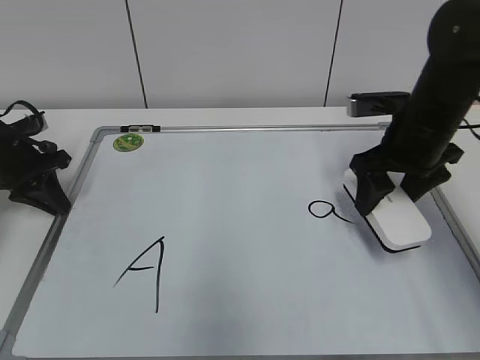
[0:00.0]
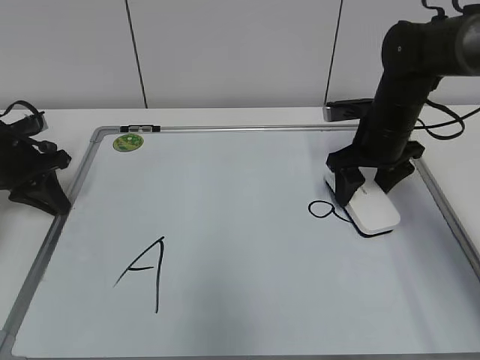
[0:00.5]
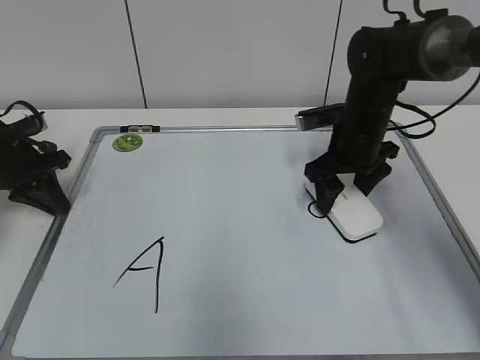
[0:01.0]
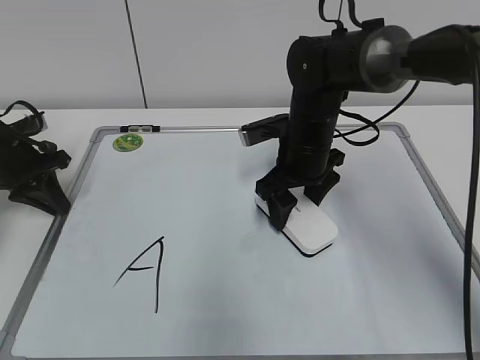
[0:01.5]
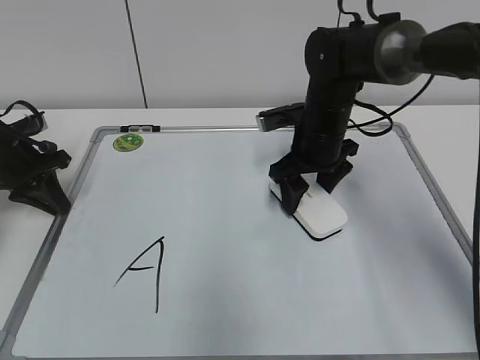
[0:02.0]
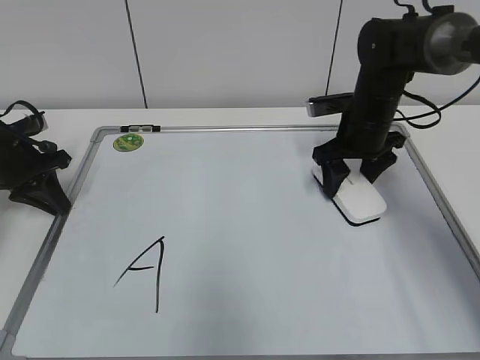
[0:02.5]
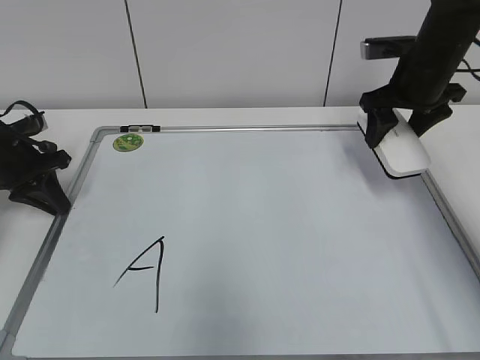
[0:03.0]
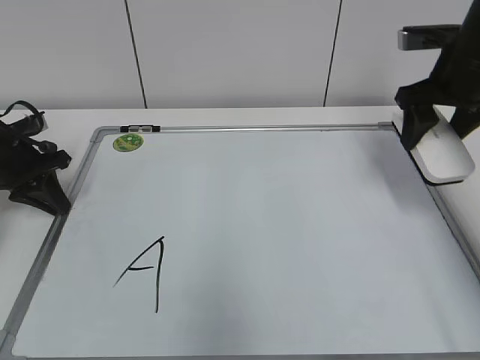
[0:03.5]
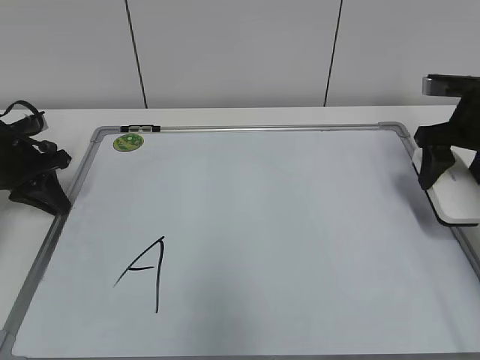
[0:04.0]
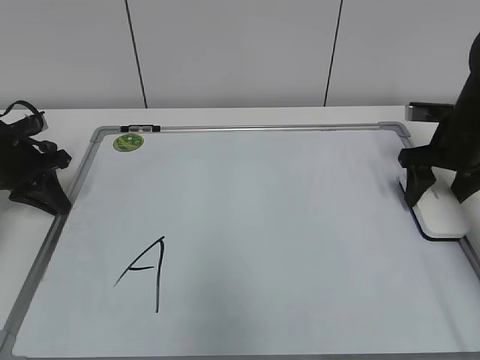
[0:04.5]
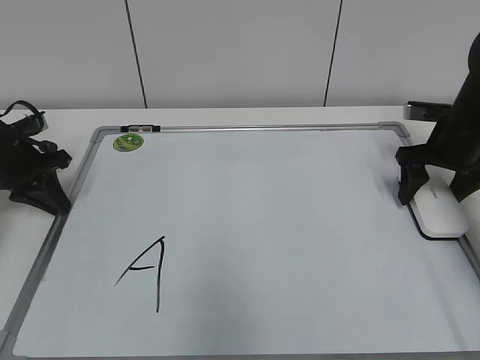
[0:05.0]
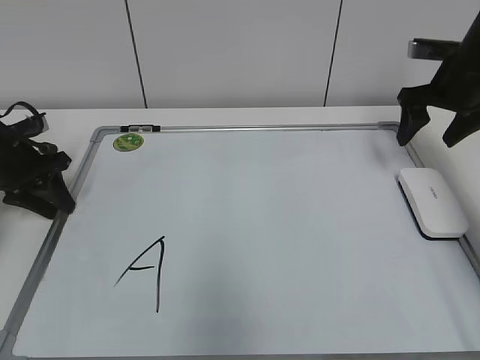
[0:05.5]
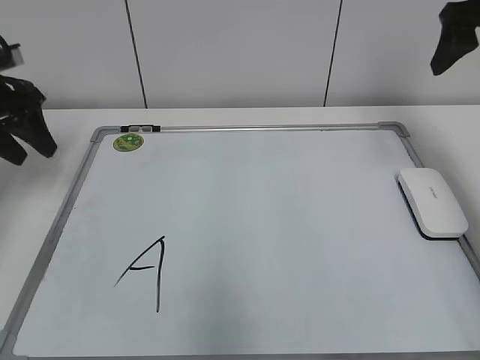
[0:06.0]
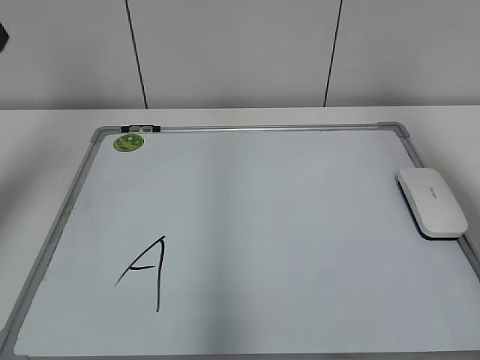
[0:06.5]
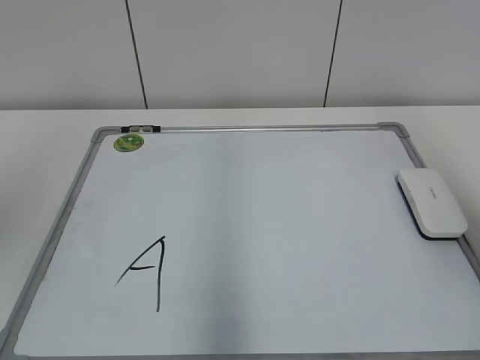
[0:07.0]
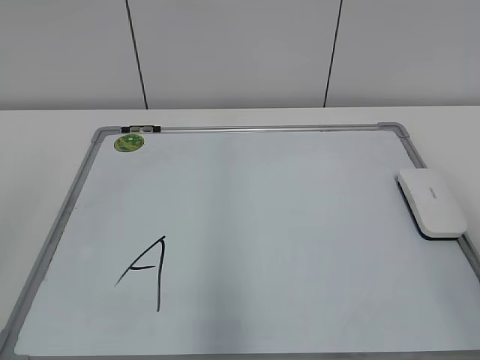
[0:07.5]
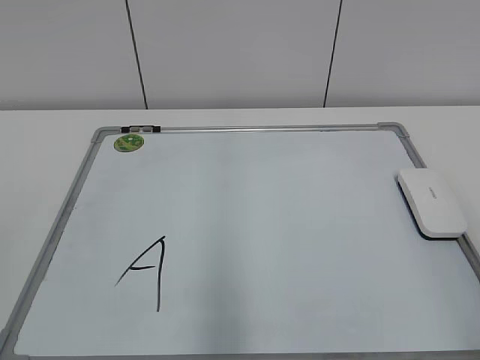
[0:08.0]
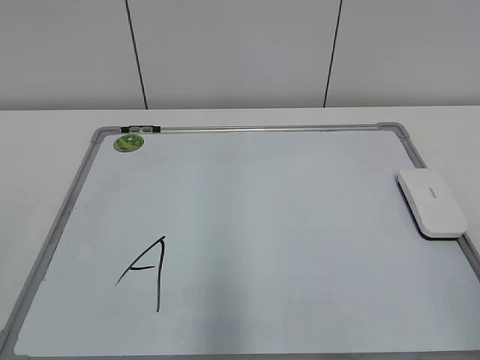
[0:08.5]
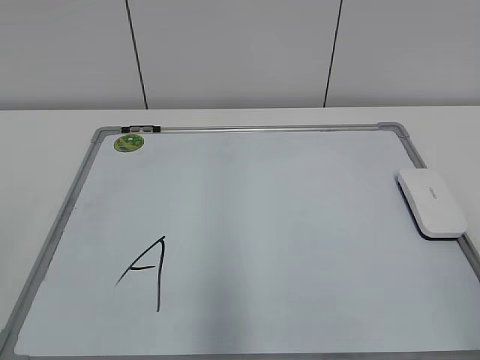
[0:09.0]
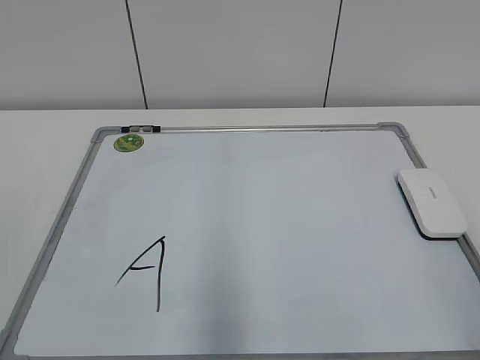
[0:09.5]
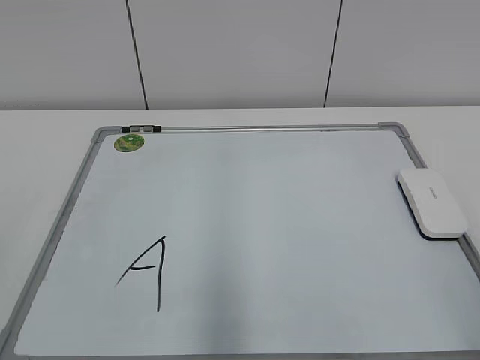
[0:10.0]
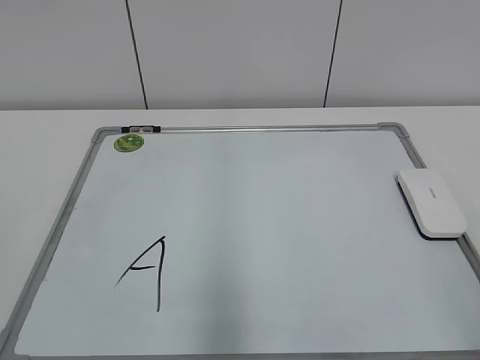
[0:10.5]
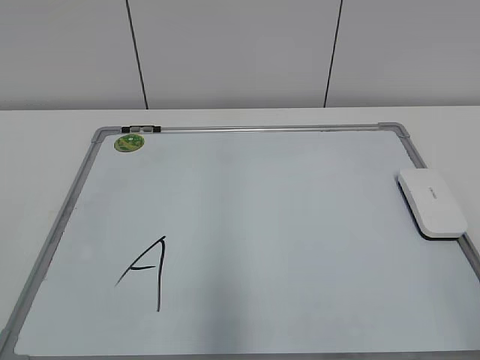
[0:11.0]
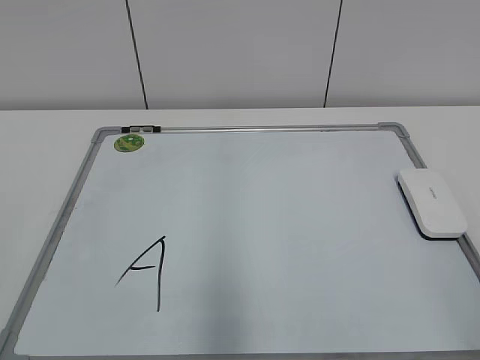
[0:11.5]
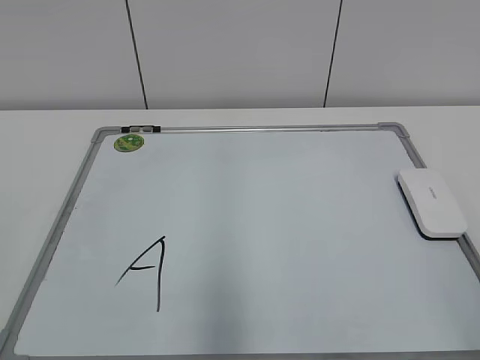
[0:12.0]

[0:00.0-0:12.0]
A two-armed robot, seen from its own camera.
Task of the whole recording: pick up the eraser on the blackboard and erase the letter "a".
Step, 0:00.0 to 0:02.5: Erase the letter a with your right hand.
Step, 0:03.0 to 0:04.5: Put down the eraser with your right hand.
0:00.0 to 0:02.0: The right gripper travels to the left and forward by approximately 10 cm.
0:02.0 to 0:04.0: The right gripper goes some 20 cm to the right.
0:04.0 to 0:06.0: Both grippers move upward, approximately 15 cm. The left gripper opens, while the right gripper opens.
0:06.0 to 0:08.0: Both grippers move backward, approximately 40 cm. The right gripper closes.

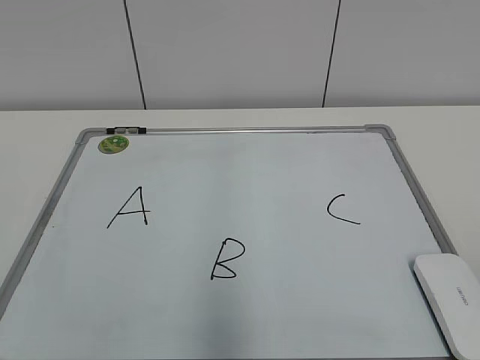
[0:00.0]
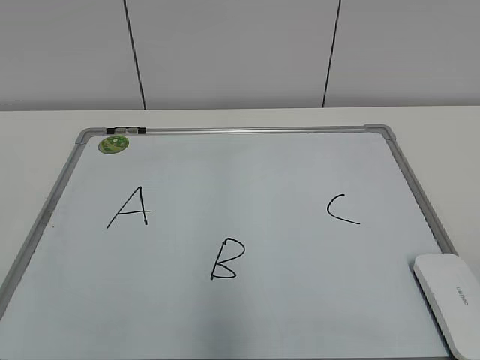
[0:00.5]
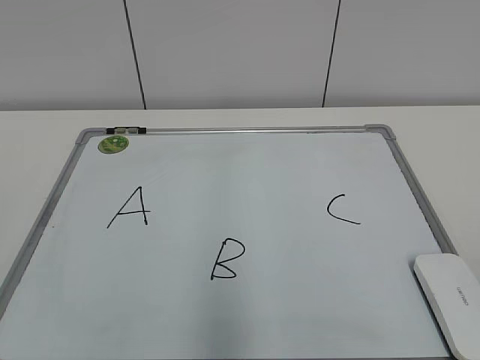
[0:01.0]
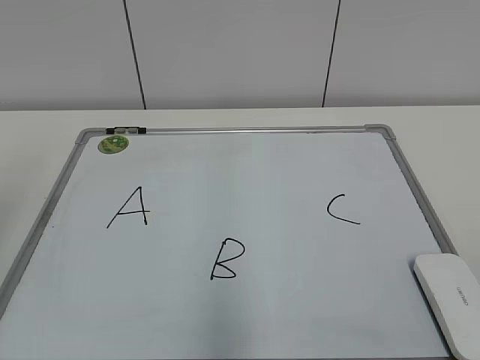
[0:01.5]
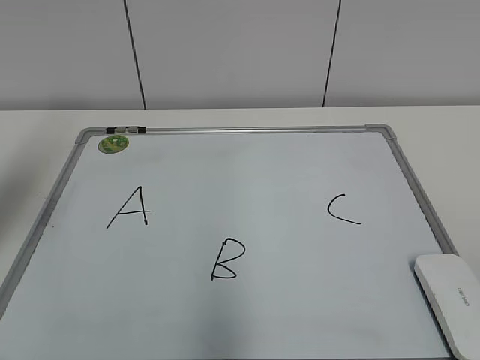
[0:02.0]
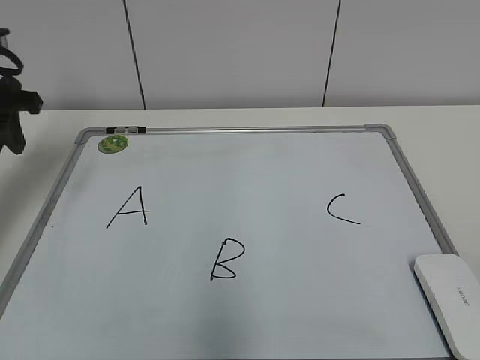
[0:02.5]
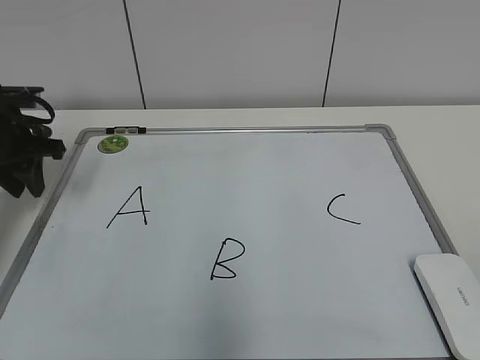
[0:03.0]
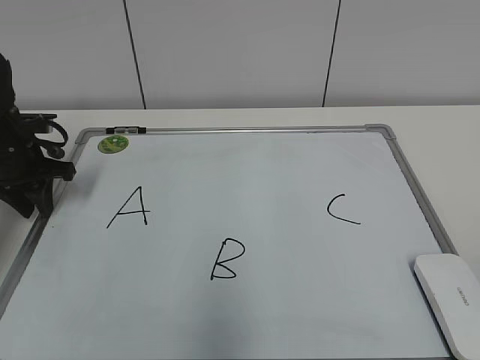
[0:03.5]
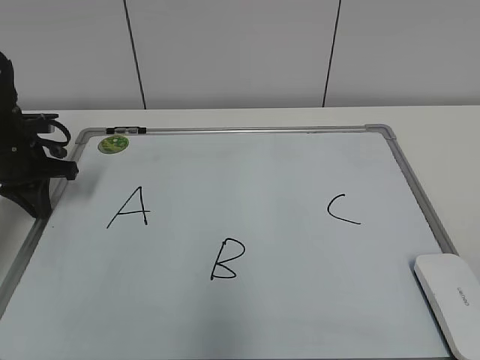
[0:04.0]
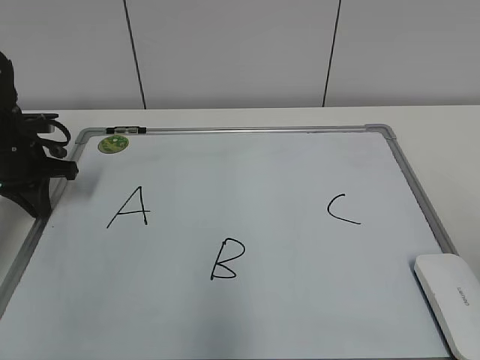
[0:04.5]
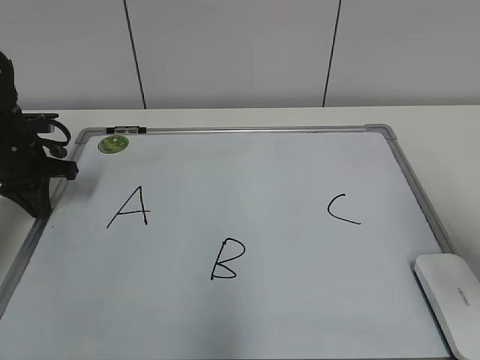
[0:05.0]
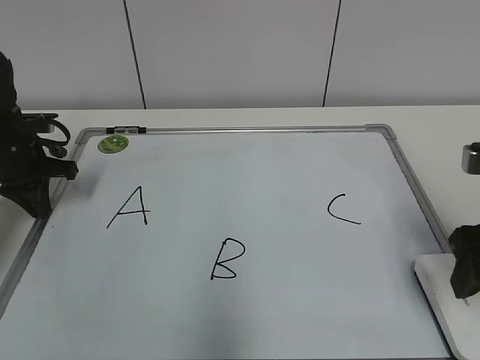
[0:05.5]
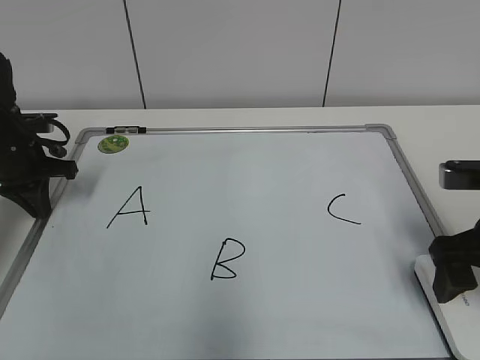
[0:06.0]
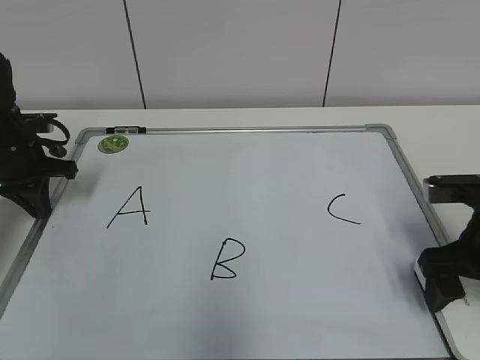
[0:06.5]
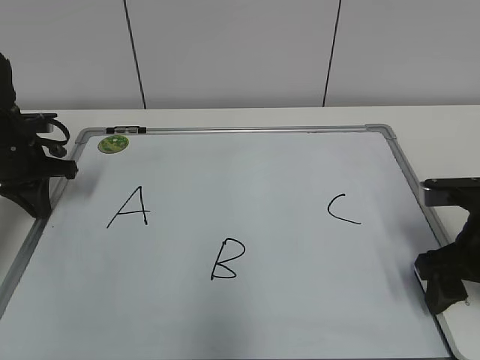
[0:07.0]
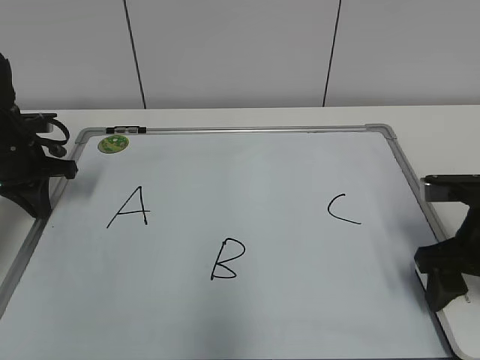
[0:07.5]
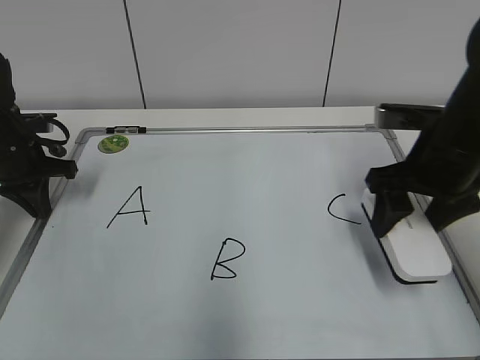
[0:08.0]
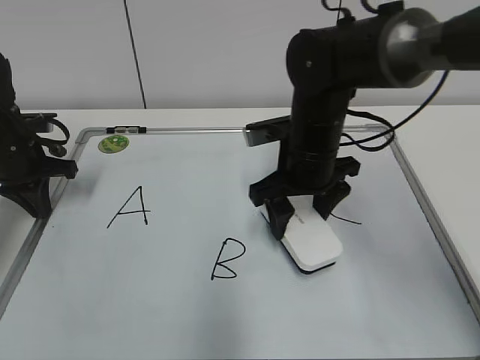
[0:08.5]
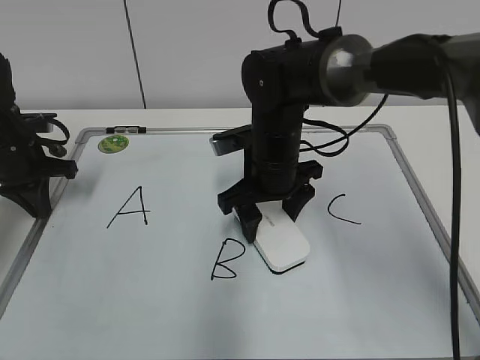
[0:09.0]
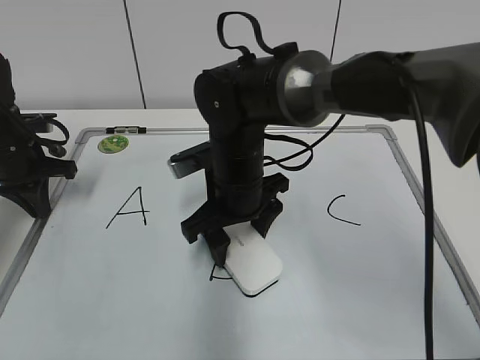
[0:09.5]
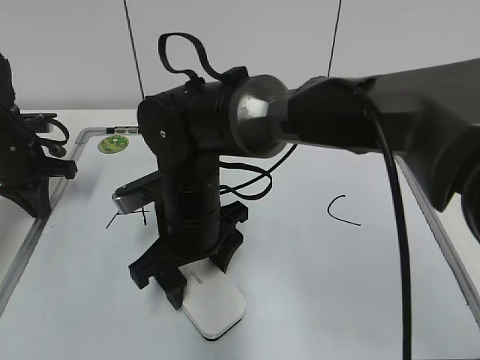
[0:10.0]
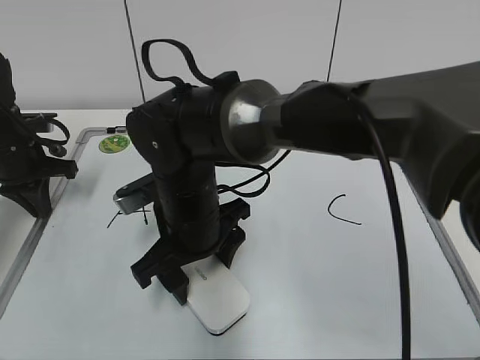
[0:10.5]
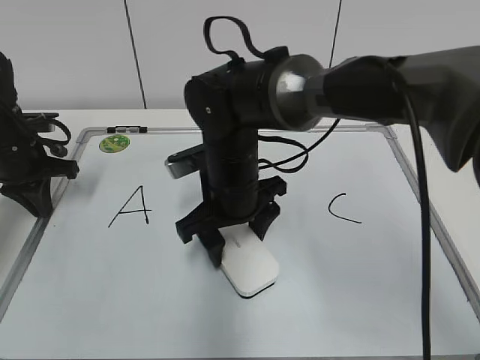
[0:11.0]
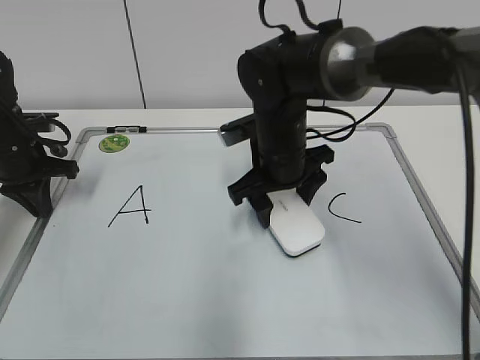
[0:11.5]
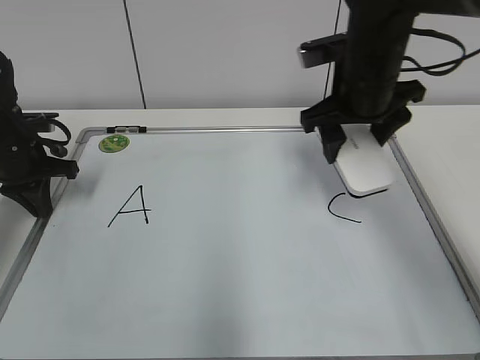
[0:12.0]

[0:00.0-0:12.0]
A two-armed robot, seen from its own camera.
Task of the whole recording: pick up the eraser on the blackboard and erase the letter "B".
Step, 0:00.0 to 0:03.5: Hold the drawing board steady with your left hand.
Step, 0:04.0 to 0:07.0: Grab the eraser with your right hand.
Step, 0:07.5 to 0:11.0: Erase the letter B with your right hand.
0:02.0 to 0:04.0: The left gripper goes approximately 20 cm downward and forward, and closes its fingers.
0:04.0 to 0:06.0: The right gripper moves forward, some 25 cm, and opens.
0:06.0 to 0:08.0: The right gripper shifts some 5 cm forward, and closes up.
0:08.0 to 0:10.0: The right gripper goes about 25 cm to the left.
0:10.0 to 0:12.0: The right gripper goes approximately 25 cm to the right, upward and forward.

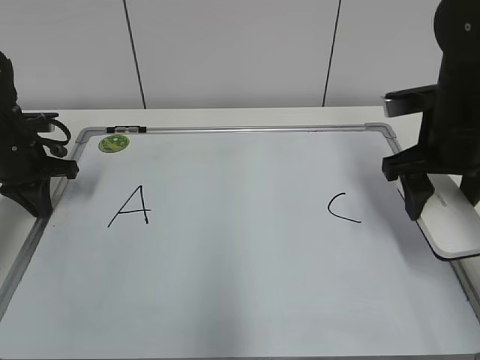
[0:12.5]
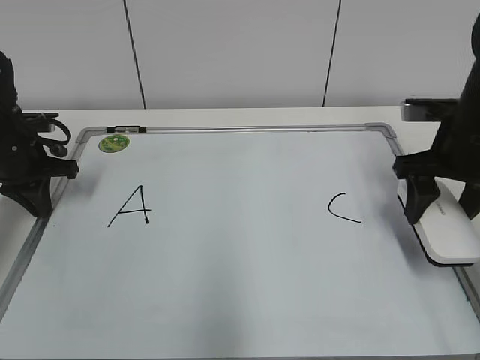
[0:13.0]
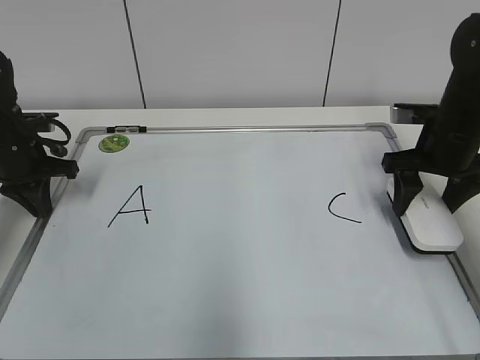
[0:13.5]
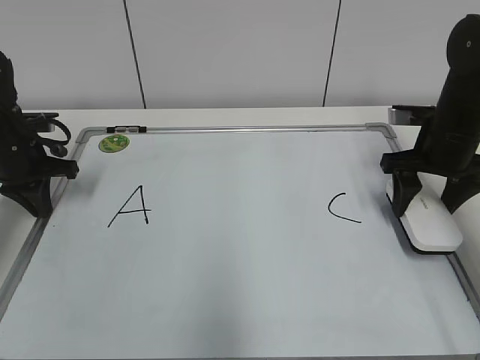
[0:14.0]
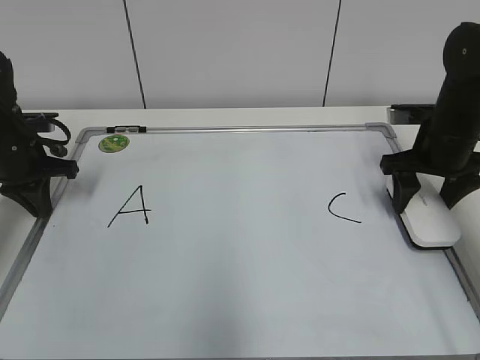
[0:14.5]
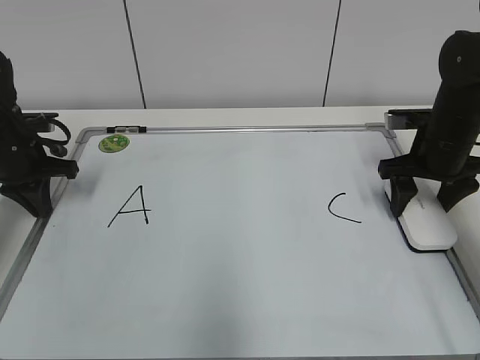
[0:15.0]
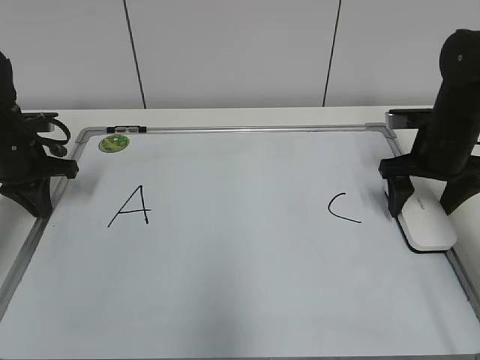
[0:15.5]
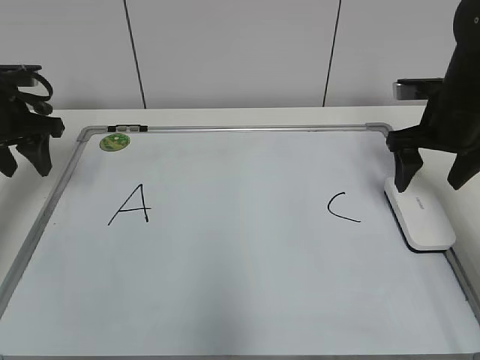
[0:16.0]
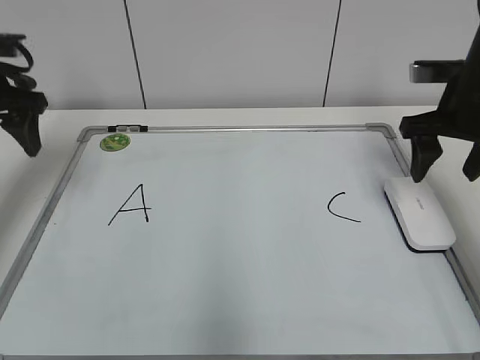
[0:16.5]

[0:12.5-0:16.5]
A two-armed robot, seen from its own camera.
Task of the whole recording: pick up the eraser on the blackboard and erase the letter "B".
Step, 0:12.5 to 0:15.5: Put down the eraser with your right hand.
0:12.5 to 0:14.5: The right gripper is displaced forward and downward by approximately 10 cm.
0:14.5 to 0:16.5: The left gripper travels upward by some 10 cm, and opens its fingers. The right gripper travels upward by about 5 cm, and opens its fingers.
